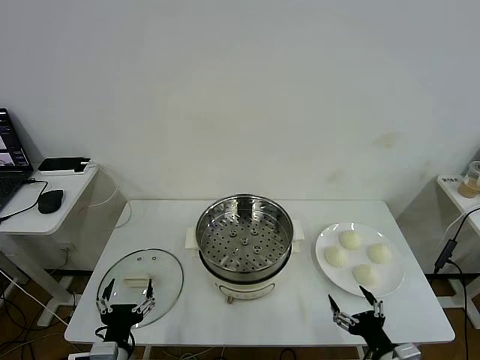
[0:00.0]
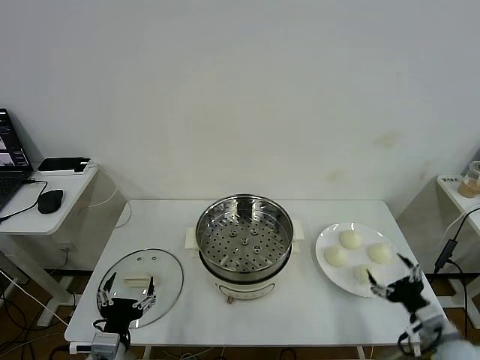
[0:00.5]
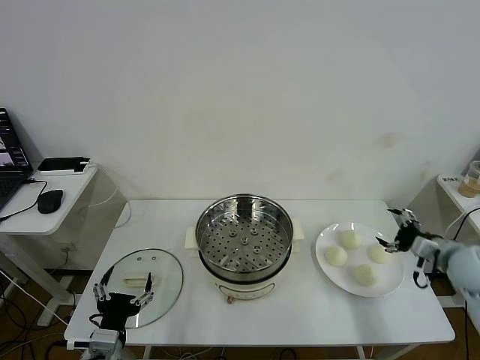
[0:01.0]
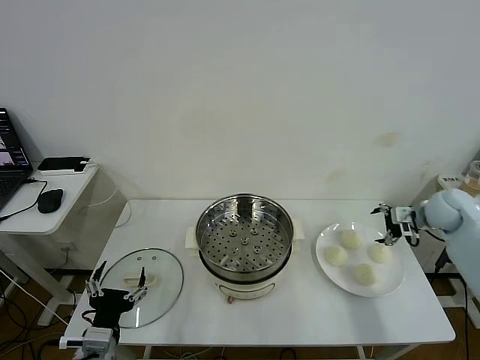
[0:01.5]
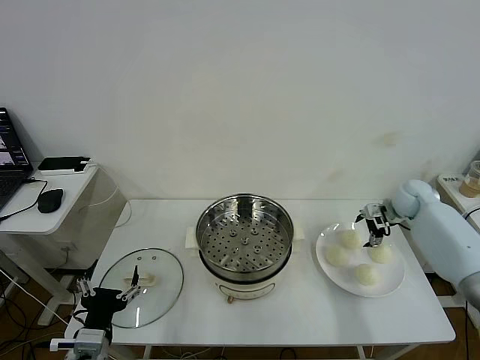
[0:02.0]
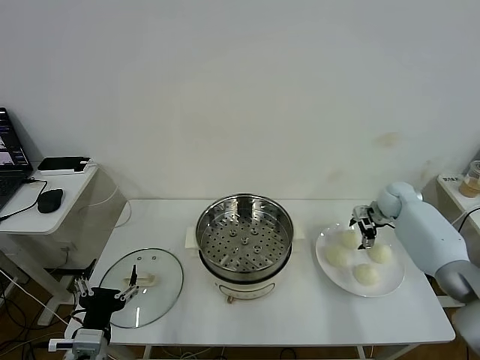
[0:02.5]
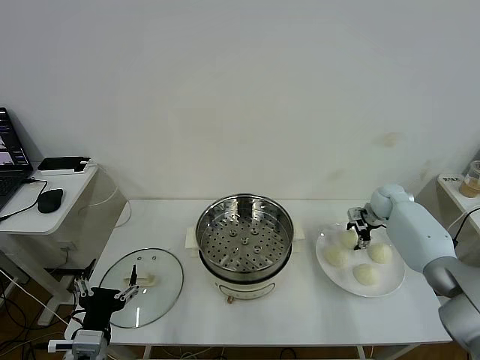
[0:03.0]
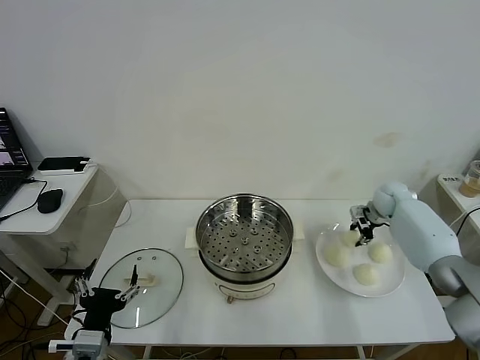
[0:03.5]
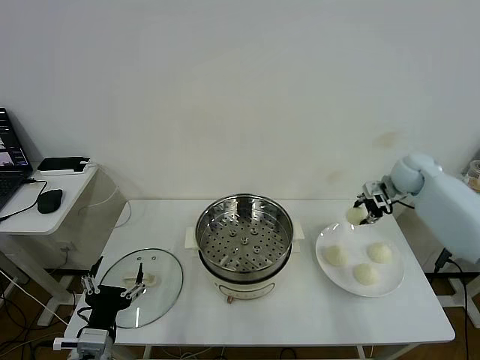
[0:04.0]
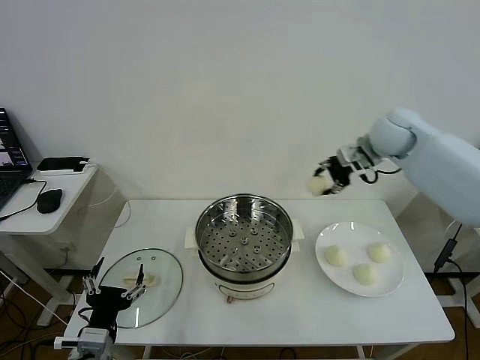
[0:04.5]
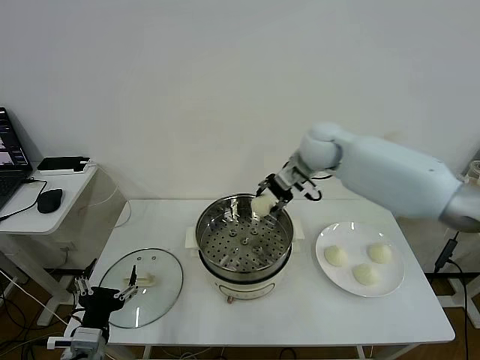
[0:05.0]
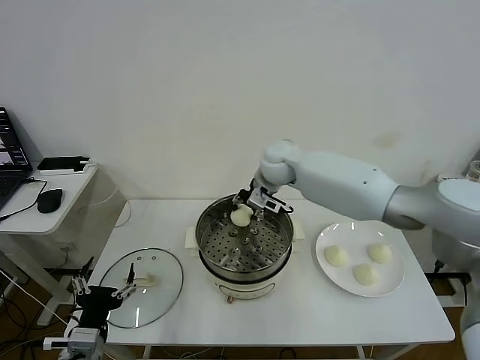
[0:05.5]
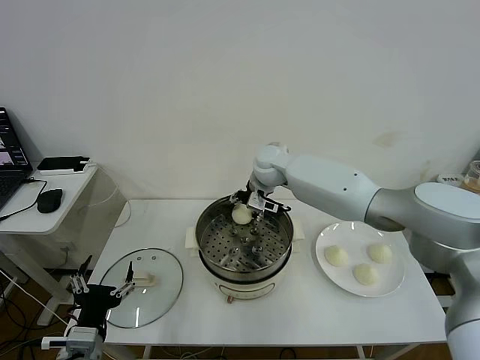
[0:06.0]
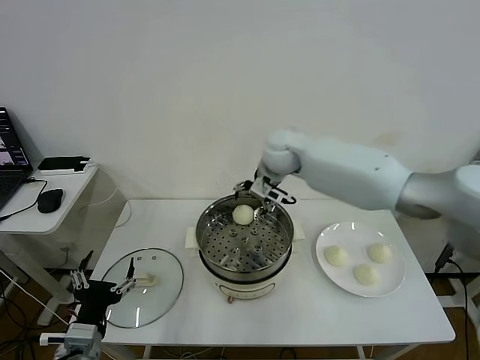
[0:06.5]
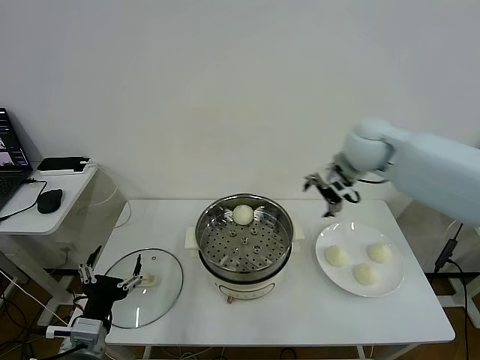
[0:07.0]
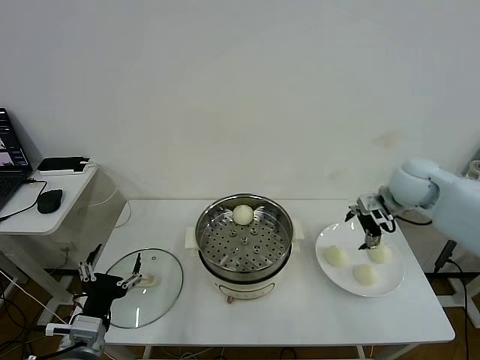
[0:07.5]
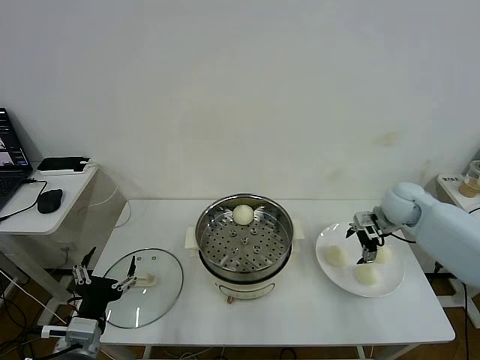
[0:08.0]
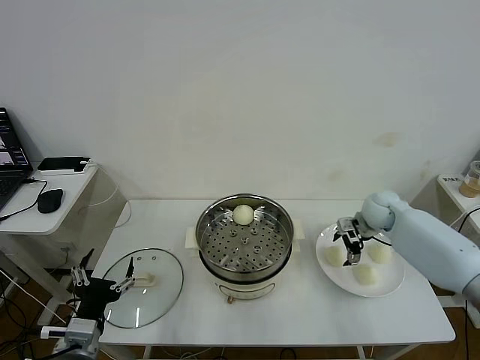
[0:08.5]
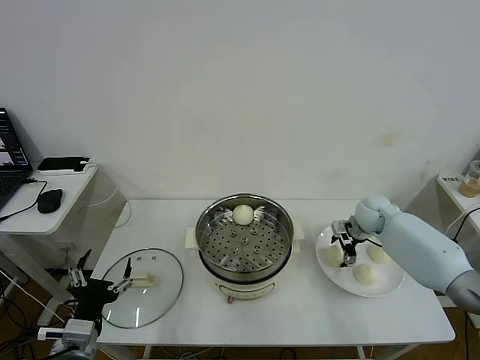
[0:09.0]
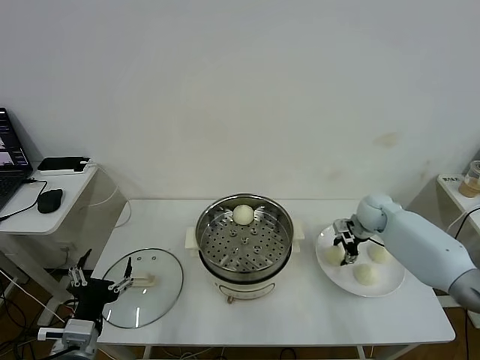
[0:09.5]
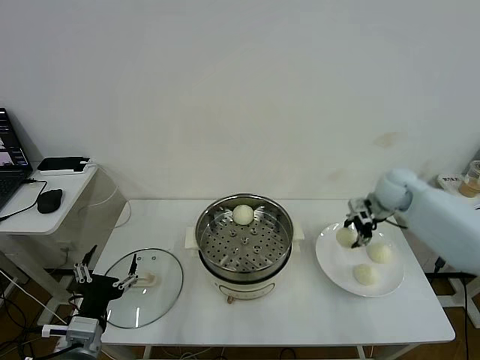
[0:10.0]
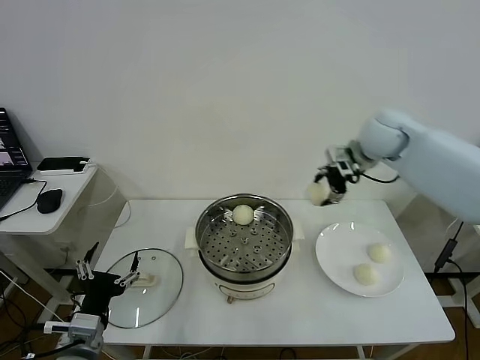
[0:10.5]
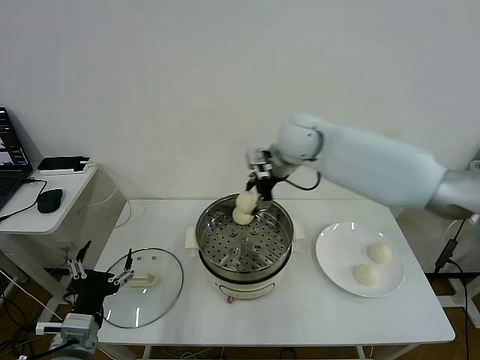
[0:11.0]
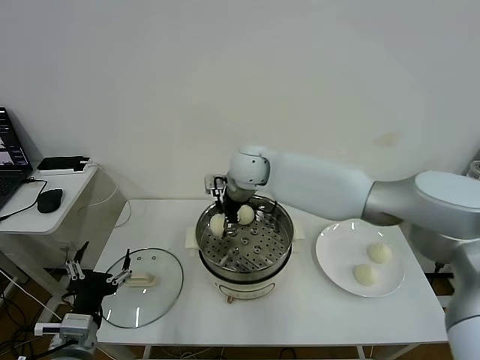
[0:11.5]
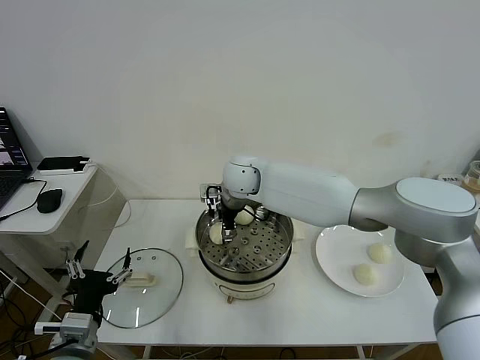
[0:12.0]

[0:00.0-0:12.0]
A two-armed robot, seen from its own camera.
Task of the whole recording: take steamed baozi put them in steamer then cover it.
Step, 0.0 to 3.0 s: Grasp the baozi in the plate with right gripper.
Step, 3.5 to 6.0 s: Place the baozi on the steamer with right gripper.
Step, 6.5 to 9.5 s: Grasp the baozi in the plate with right gripper.
2.0 to 4.0 s: The right gripper is displaced upward by some 10 cm, and closes its fingers.
4.0 to 6.0 s: The right gripper moves to the left, some 35 cm, and opens its fingers.
6.0 to 8.0 s: The right gripper moves to the right, about 30 cm, and opens its fingers.
8.0 to 10.0 s: The right gripper travels downward and back again, about 5 cm each way, and closes.
10.0 to 12.0 s: The right gripper travels to the left by approximately 35 cm, and opens up.

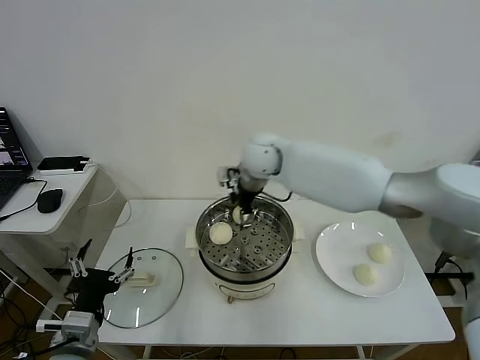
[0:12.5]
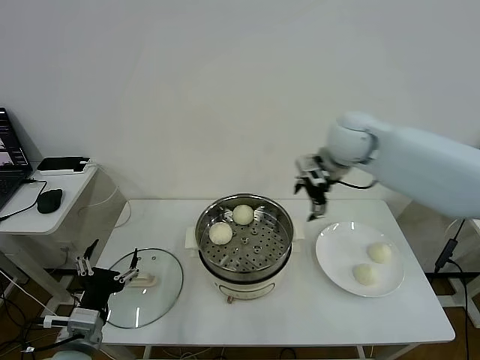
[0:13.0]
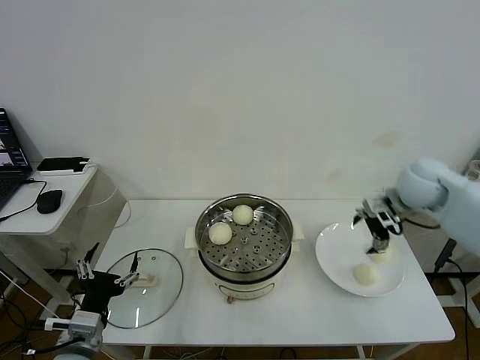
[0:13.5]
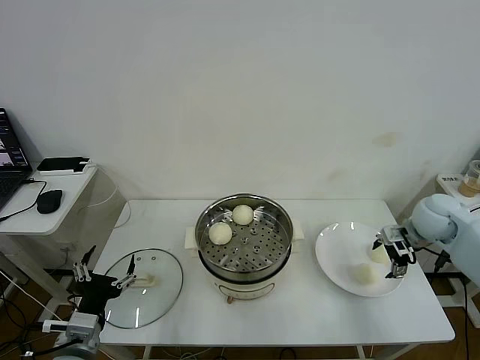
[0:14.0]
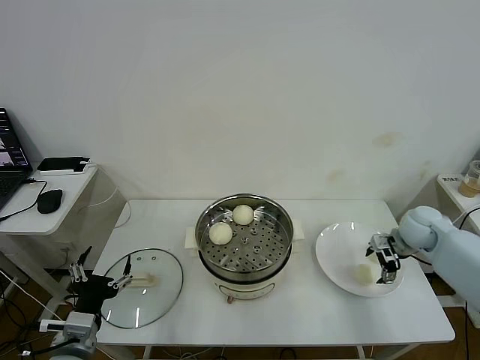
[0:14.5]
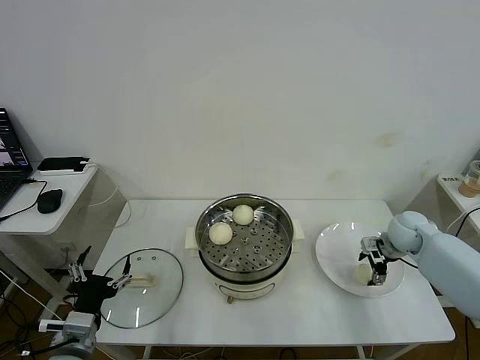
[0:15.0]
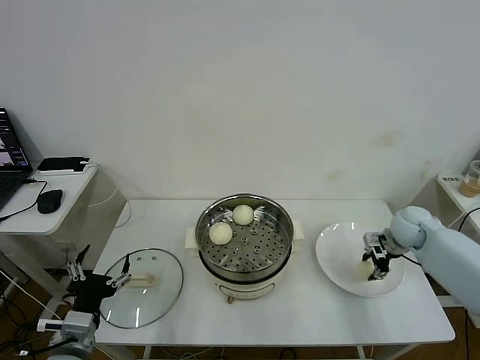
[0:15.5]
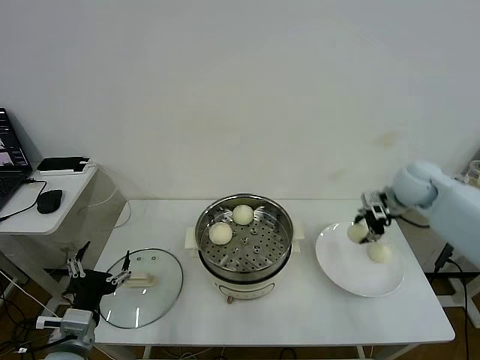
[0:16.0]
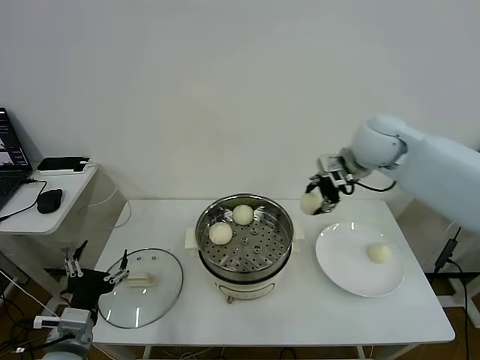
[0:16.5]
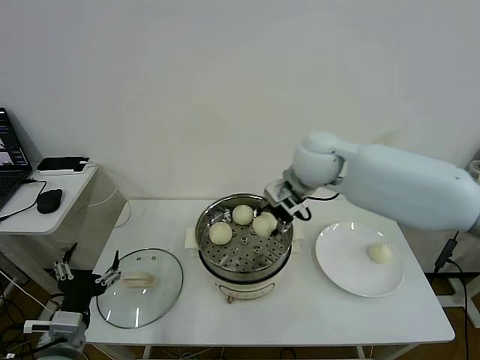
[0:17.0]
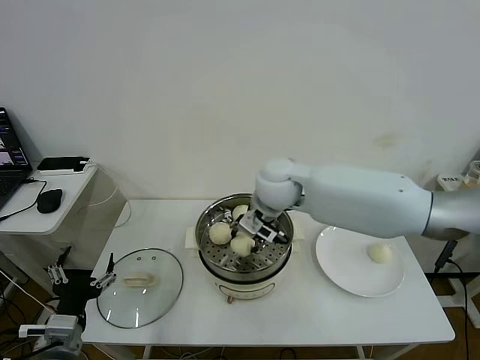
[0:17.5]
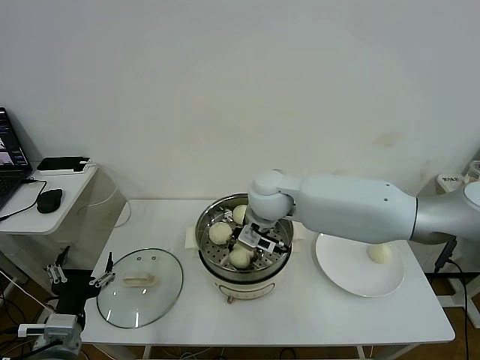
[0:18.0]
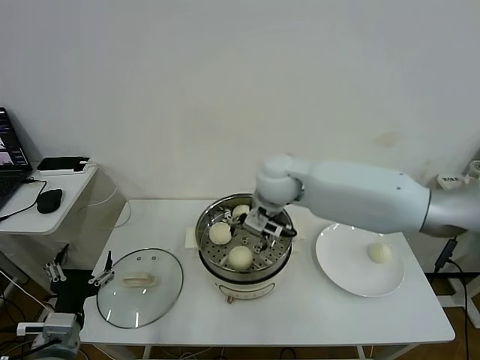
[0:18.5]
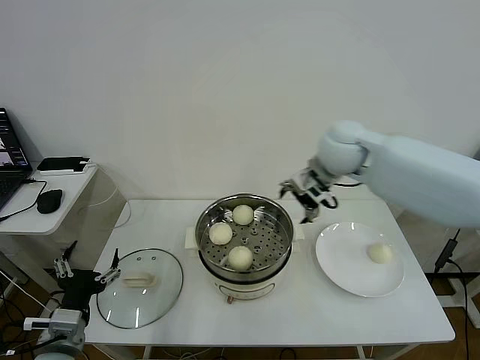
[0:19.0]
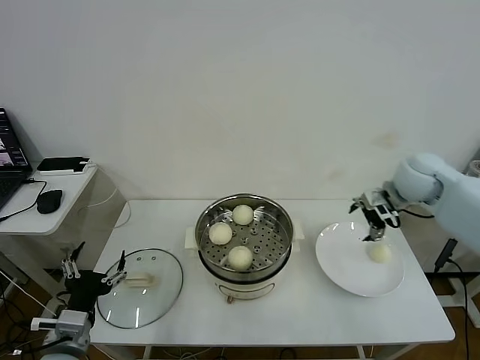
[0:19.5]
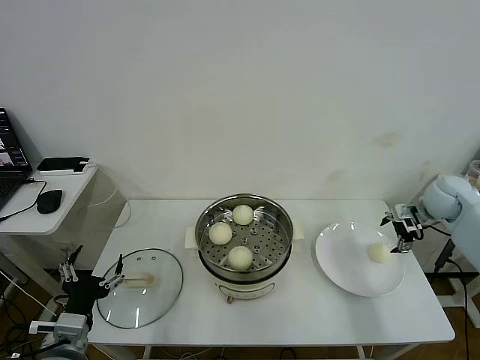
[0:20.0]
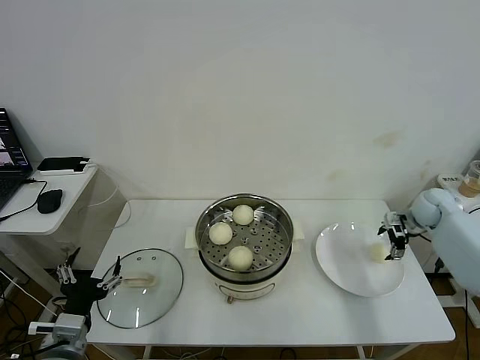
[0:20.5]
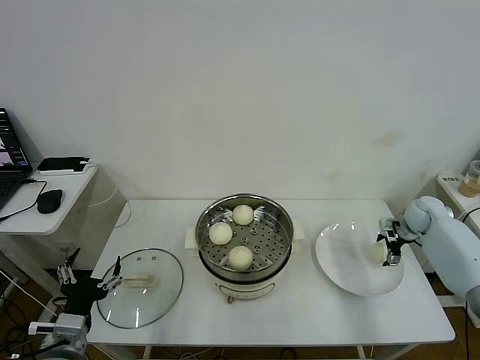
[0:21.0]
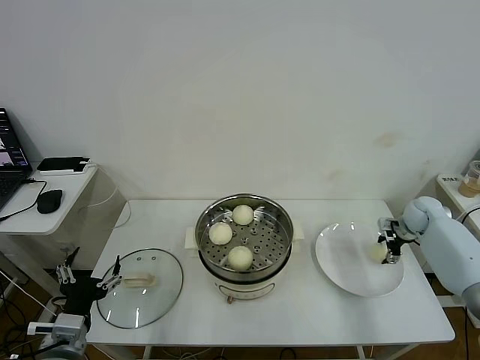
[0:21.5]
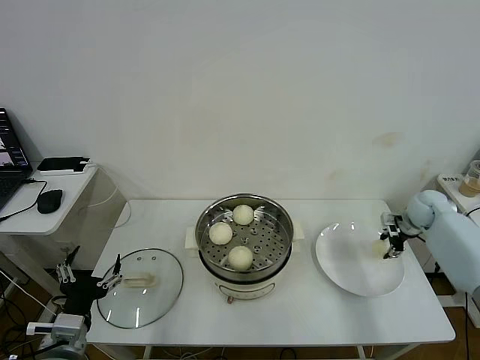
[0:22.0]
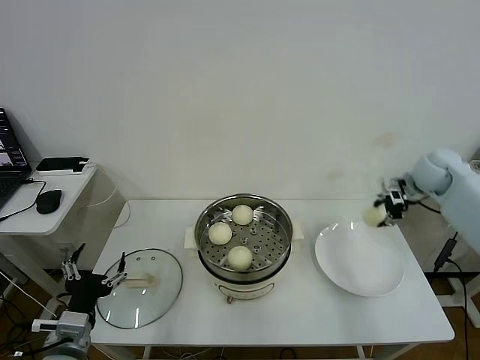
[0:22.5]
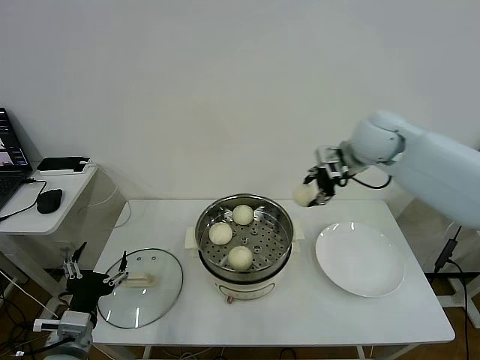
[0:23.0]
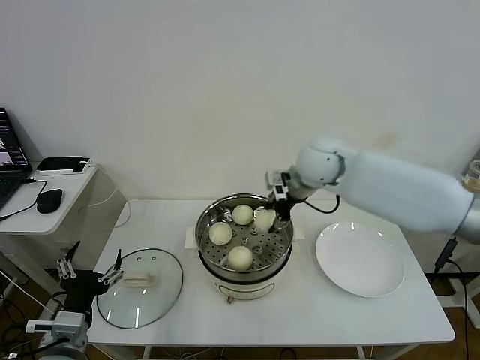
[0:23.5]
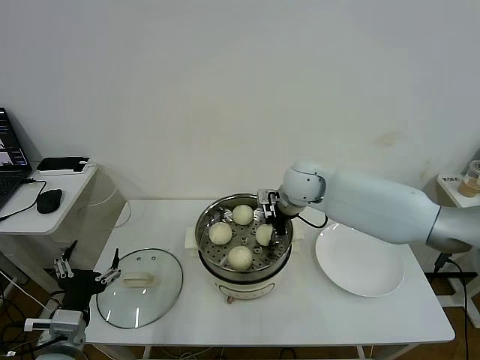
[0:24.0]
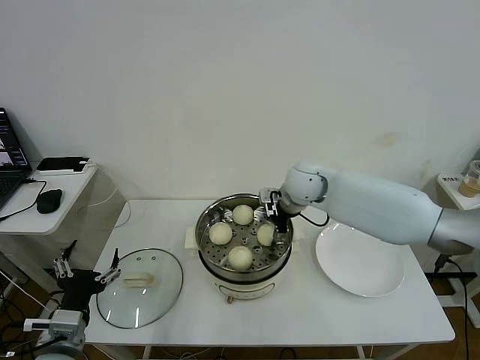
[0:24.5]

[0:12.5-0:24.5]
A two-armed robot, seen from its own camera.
Task of the whole recording: take steamed baozi put them in steamer then cover it.
Step, 12.5 to 15.0 s: Grasp the baozi in the plate with right gripper.
Step, 16.0 to 18.0 s: Place the baozi on the steamer with right gripper.
Step, 18.5 to 21.5 s: Grasp the baozi in the plate with right gripper.
12.5 to 14.5 s: The right gripper shifts roughly 40 cm to the right and downward.
14.5 to 16.5 s: The right gripper moves upward and to the left, approximately 25 cm, and closes its fingers.
16.5 to 18.5 s: The right gripper goes roughly 20 cm to the left, and opens.
18.5 to 20.5 s: The right gripper moves to the right, some 40 cm.
20.5 to 22.5 s: The right gripper goes some 15 cm upward and to the left, and closes.
22.5 to 24.5 s: The right gripper travels to the left by approximately 30 cm, and opens up.

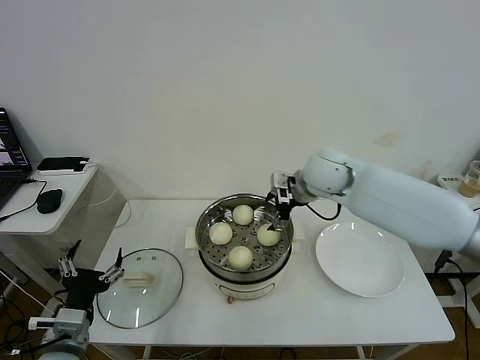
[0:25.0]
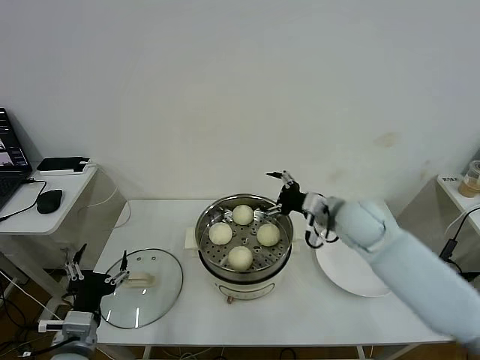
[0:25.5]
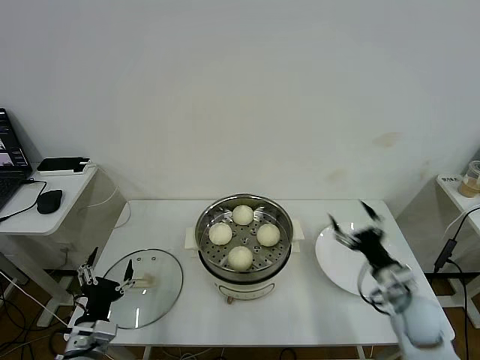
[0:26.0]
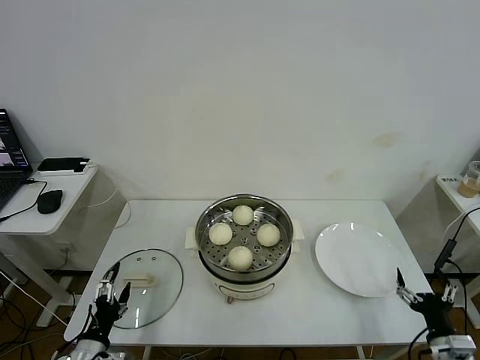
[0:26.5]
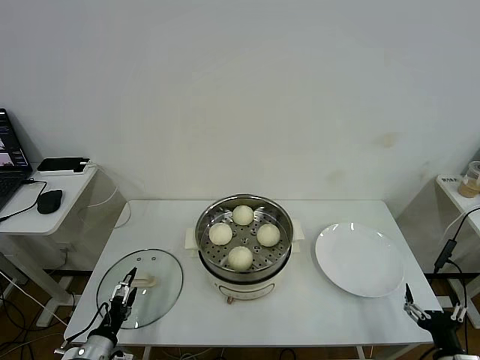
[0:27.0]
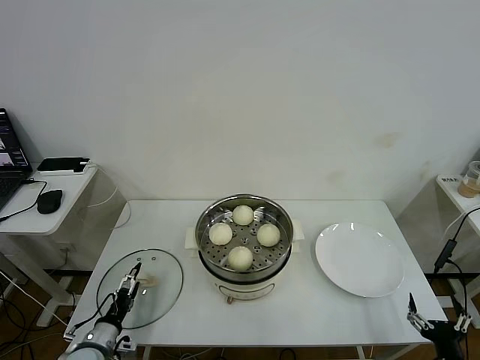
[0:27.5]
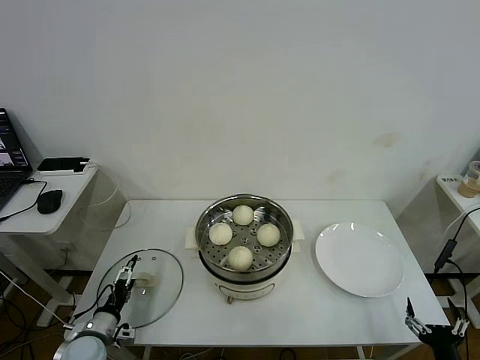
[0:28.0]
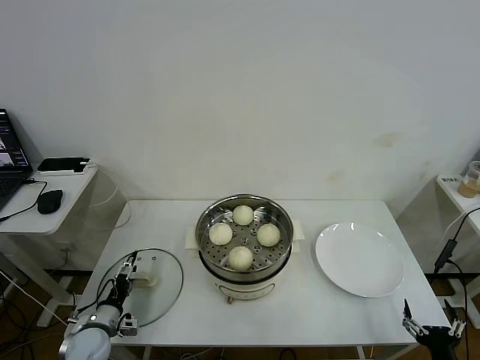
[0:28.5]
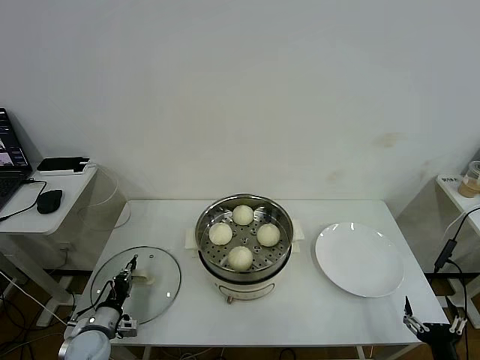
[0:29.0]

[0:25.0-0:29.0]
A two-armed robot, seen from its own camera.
Task of the whole recording: take steamed baozi put them in steamer then cover it.
25.0 to 27.0 s: The right gripper travels backward, downward and to the right by about 50 cm. Meanwhile the left gripper shifts about 15 cm downward.
27.0 to 29.0 s: The left gripper heads forward, covering some 10 cm, and closes its fingers.
